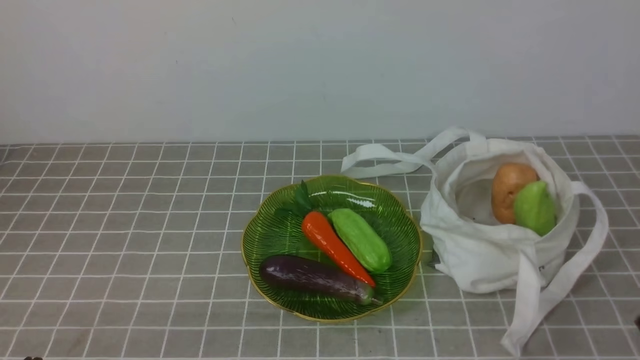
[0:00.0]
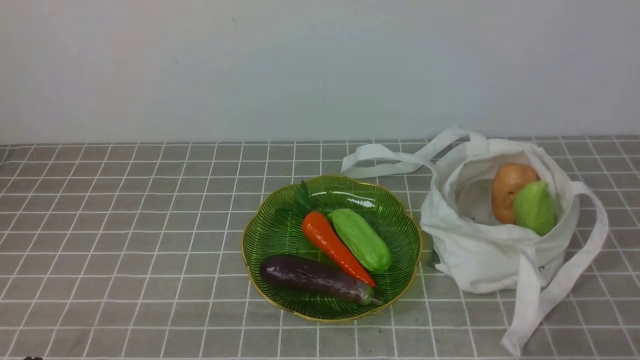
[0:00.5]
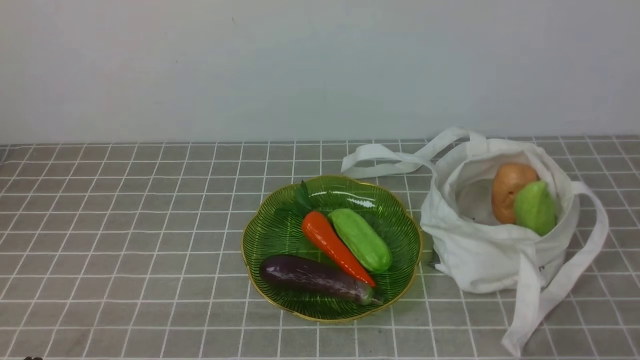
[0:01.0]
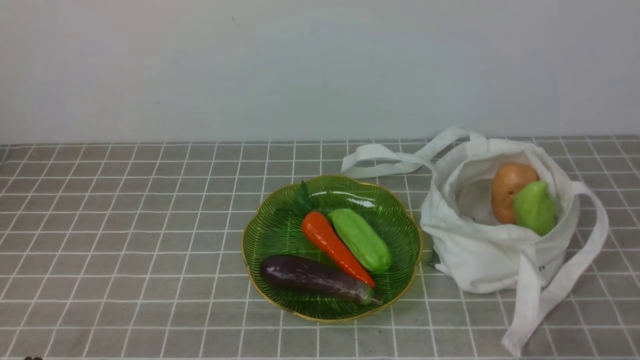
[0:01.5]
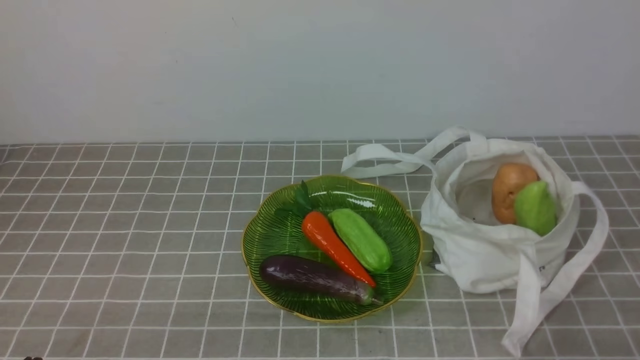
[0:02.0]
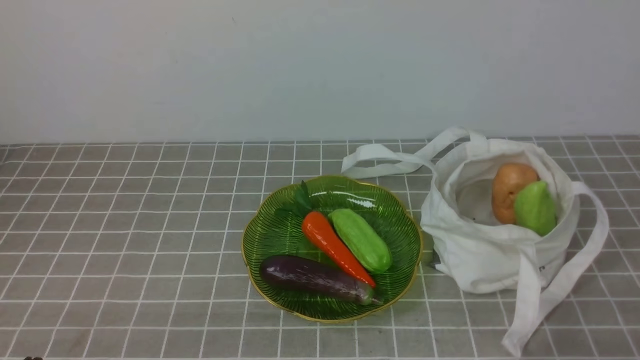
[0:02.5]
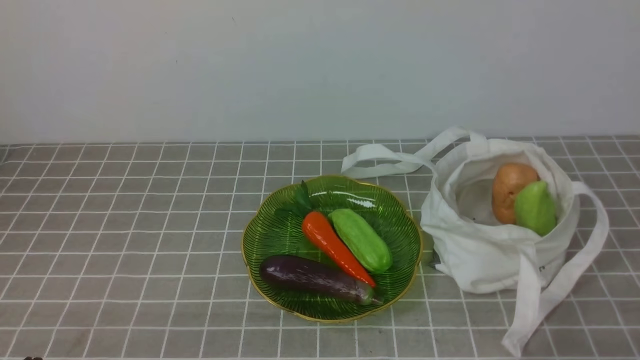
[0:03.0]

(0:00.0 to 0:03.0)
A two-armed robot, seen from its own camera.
Task of the whole recording: take vegetables from bag on grey coffee tablecloth place on plate.
0:01.5 - 0:03.0: Both grippers stay put.
